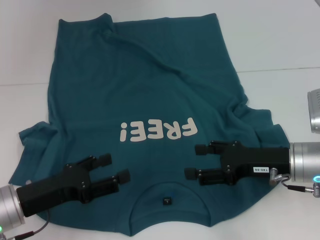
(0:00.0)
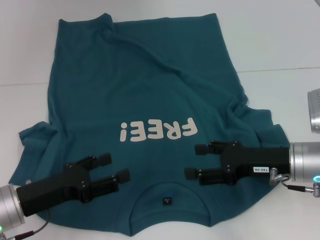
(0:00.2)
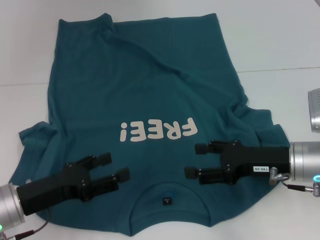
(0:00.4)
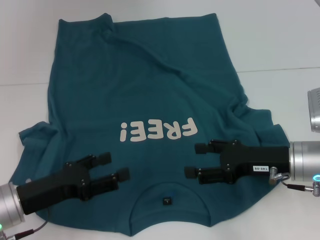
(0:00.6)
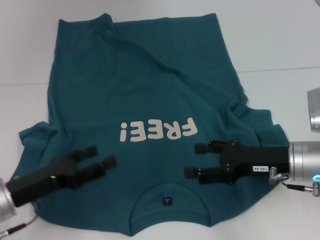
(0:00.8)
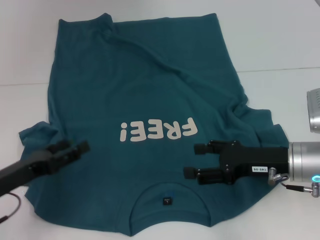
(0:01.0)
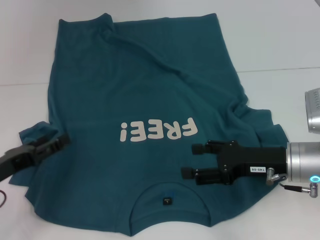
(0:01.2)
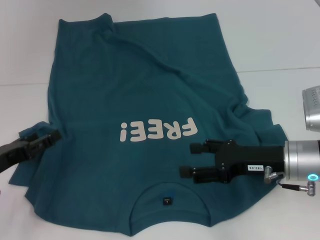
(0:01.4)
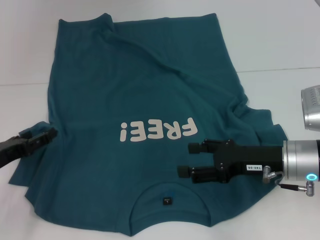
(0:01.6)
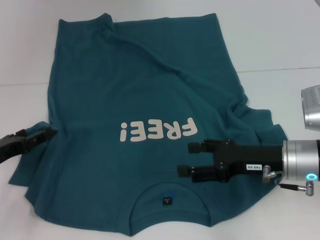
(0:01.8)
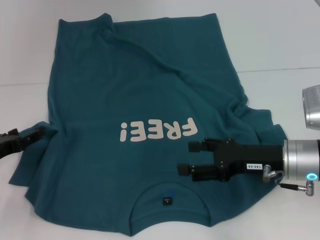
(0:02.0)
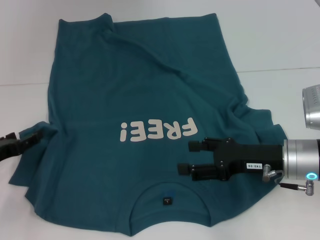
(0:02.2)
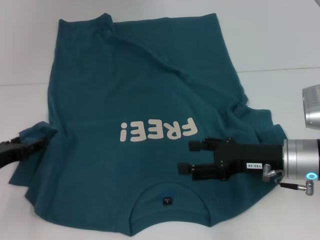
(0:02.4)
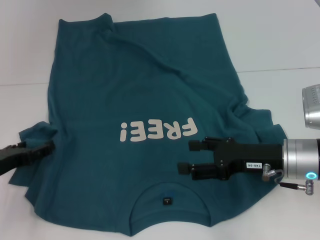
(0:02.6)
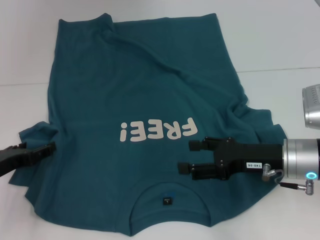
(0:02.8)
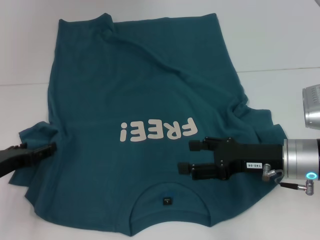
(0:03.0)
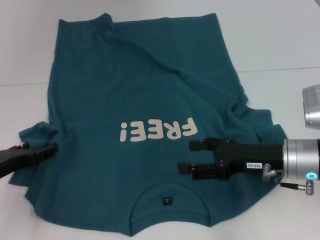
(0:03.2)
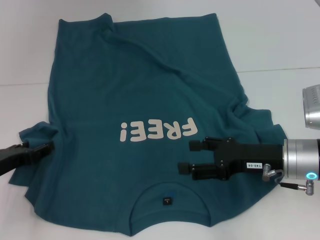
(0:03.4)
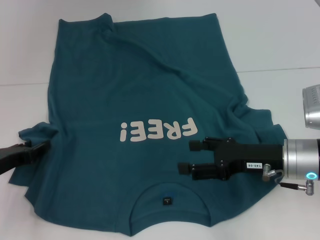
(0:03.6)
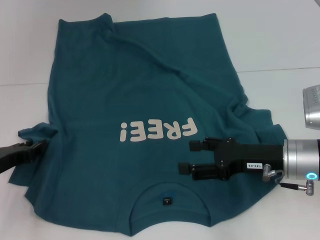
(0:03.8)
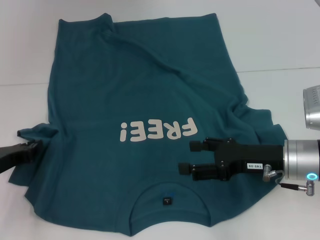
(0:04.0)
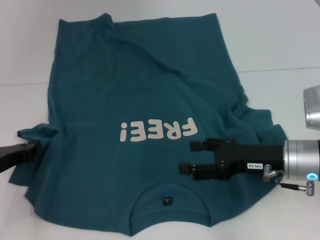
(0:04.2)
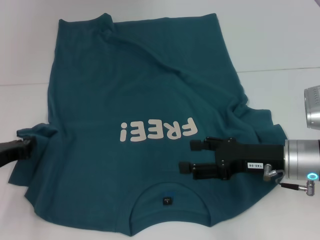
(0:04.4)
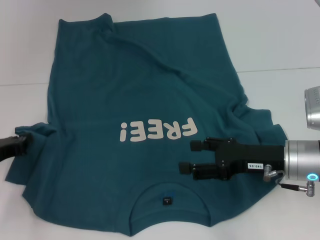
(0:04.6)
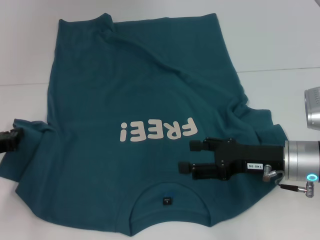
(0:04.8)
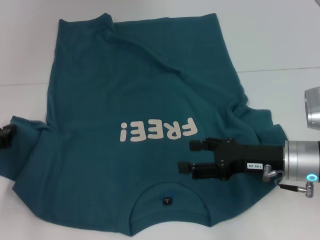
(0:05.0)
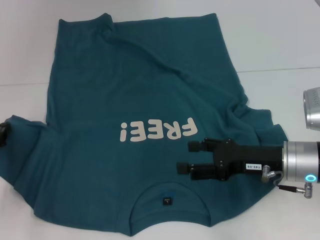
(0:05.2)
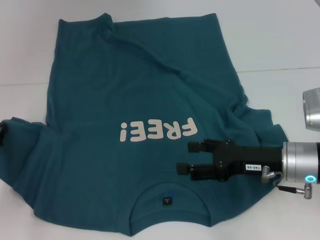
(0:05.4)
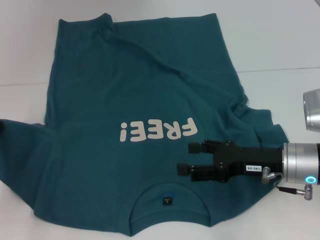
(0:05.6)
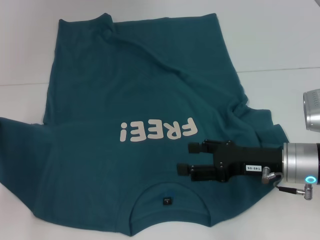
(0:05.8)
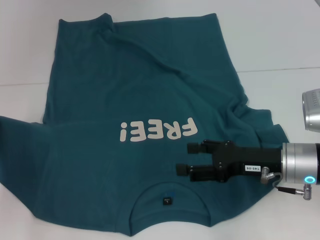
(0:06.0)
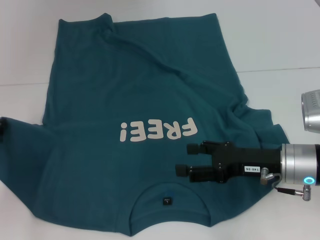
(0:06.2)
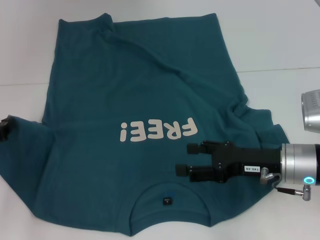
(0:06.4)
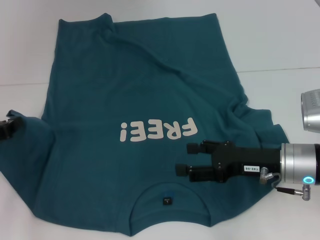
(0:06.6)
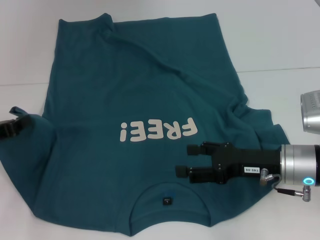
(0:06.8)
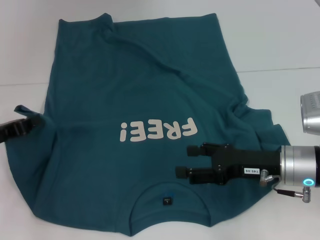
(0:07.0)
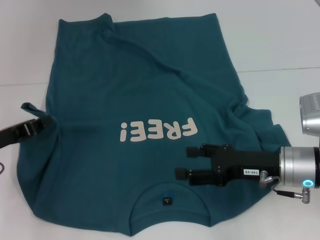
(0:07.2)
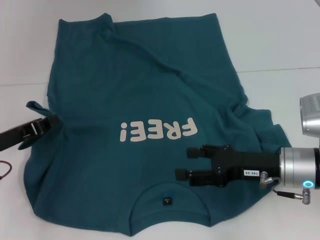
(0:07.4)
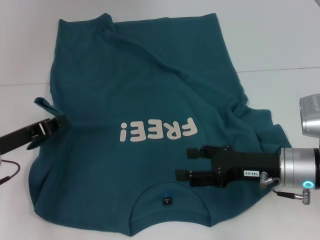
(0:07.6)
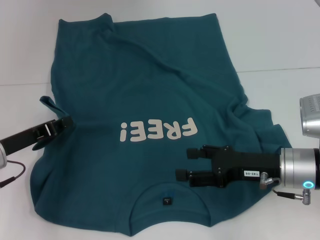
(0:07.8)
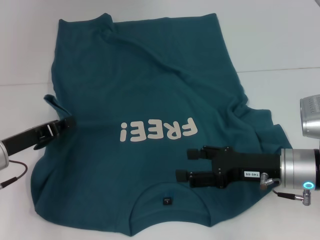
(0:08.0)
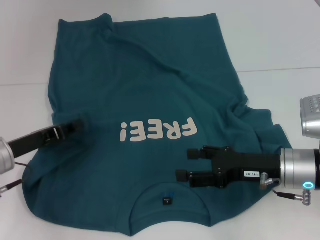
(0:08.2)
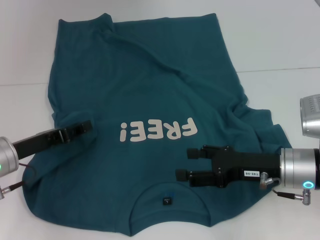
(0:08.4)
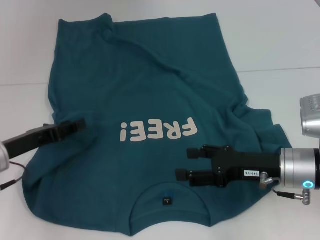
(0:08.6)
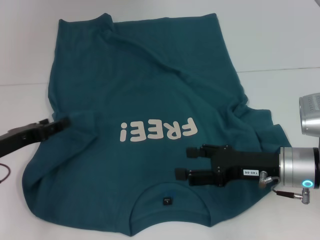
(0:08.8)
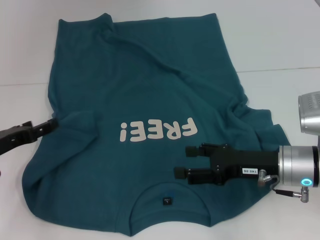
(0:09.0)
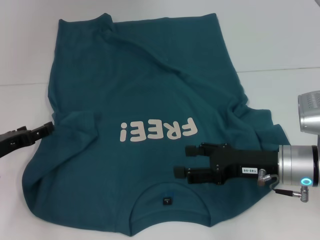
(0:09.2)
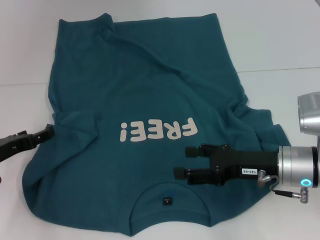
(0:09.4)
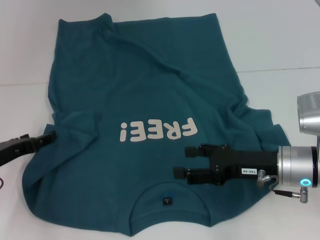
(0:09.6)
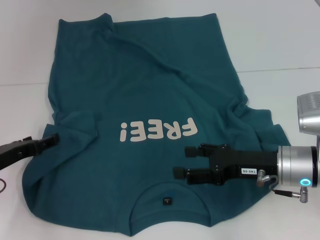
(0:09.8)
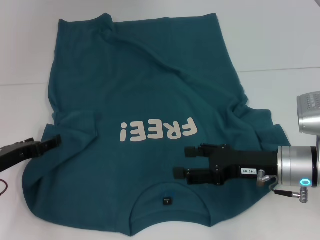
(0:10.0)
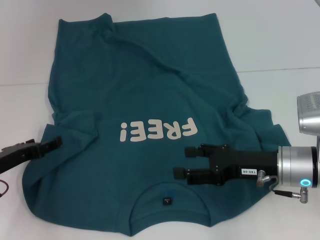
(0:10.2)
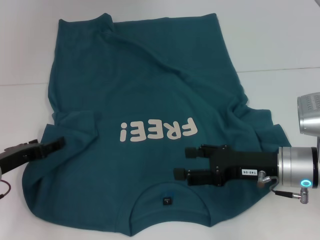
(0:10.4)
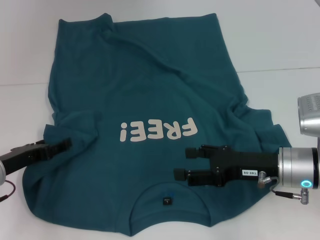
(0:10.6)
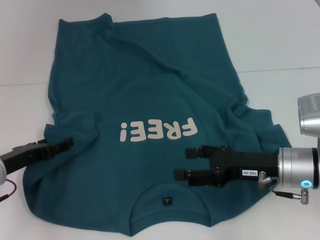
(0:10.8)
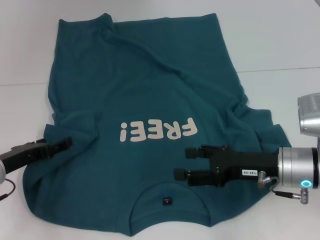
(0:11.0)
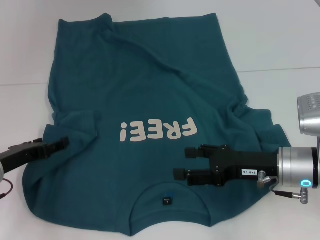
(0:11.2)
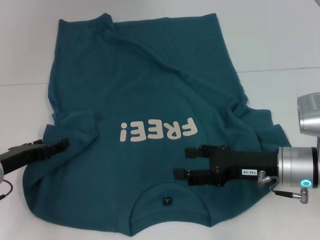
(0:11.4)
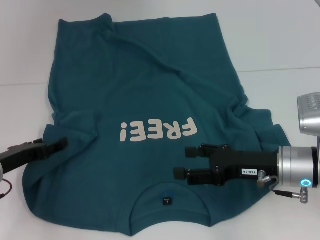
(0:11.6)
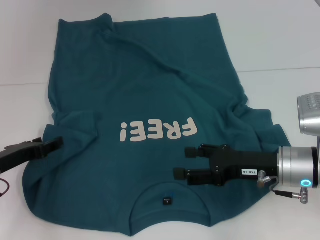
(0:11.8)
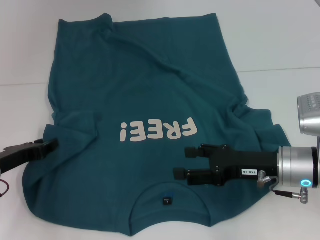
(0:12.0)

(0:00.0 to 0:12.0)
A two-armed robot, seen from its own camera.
Step, 0:00.0 - 0:08.6: Fold the bottom left sleeve with your left hand.
0:00.0 - 0:01.6: The left gripper moves to the left, some 5 cm.
0:01.6 - 0:03.0: The grippers move only a little.
0:03.0 - 0:04.4: The left gripper closes up.
0:04.4 - 0:06.0: The left gripper moves about 5 cm.
0:06.0 - 0:07.6: The left gripper heads to the right, covering approximately 5 cm.
0:07.6 - 0:09.0: The left gripper opens up.
0:09.0 - 0:10.4: The grippers make only small movements.
0:10.4 - 0:12.0: Both grippers stay about where they are.

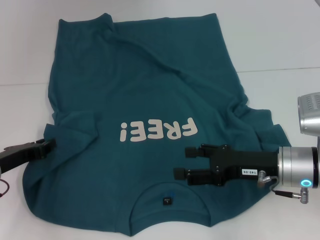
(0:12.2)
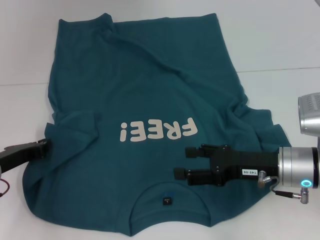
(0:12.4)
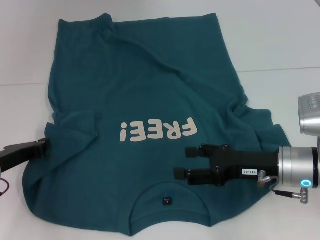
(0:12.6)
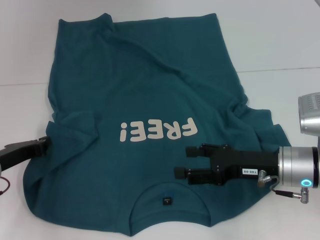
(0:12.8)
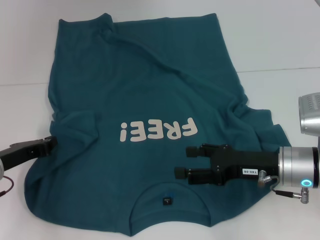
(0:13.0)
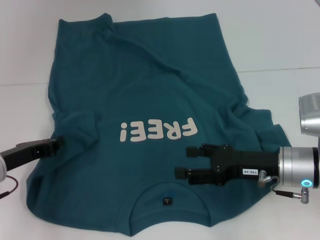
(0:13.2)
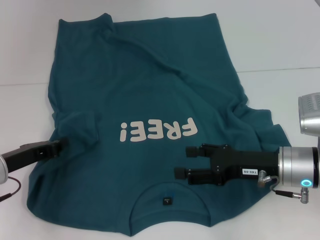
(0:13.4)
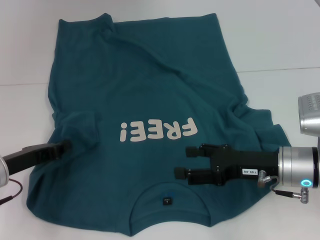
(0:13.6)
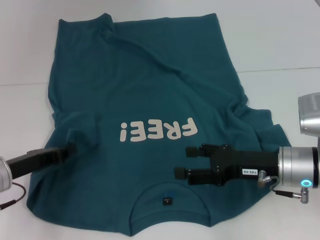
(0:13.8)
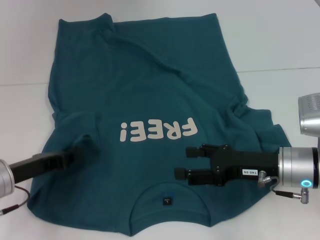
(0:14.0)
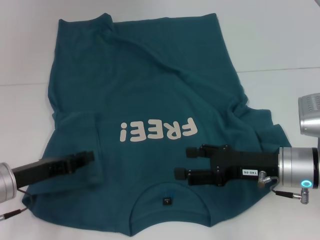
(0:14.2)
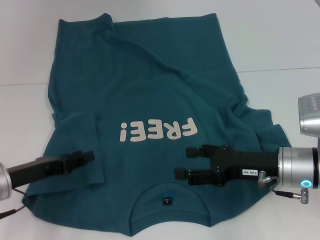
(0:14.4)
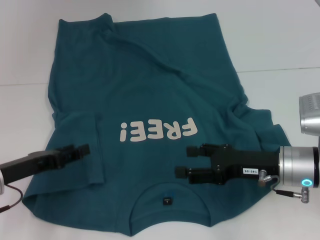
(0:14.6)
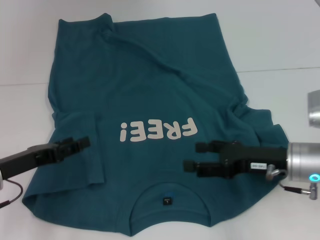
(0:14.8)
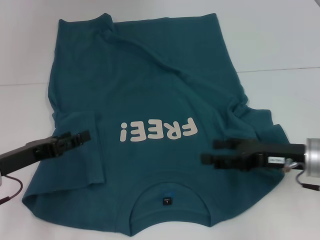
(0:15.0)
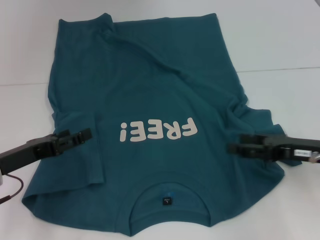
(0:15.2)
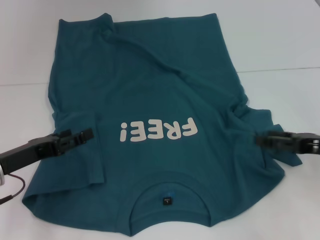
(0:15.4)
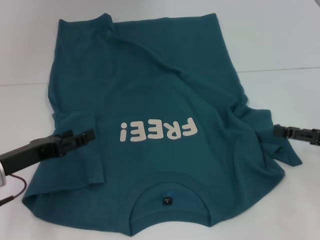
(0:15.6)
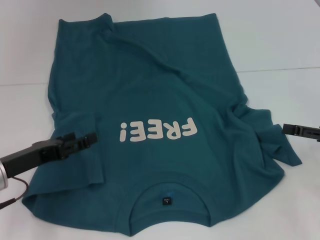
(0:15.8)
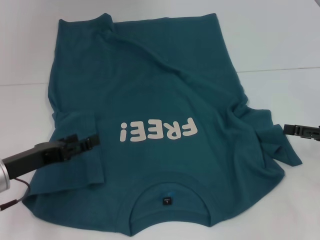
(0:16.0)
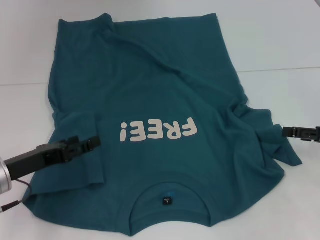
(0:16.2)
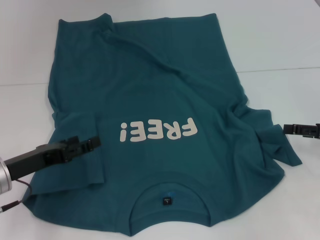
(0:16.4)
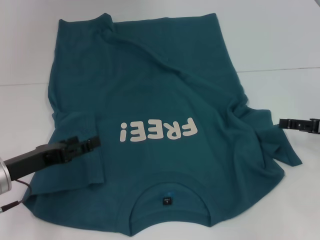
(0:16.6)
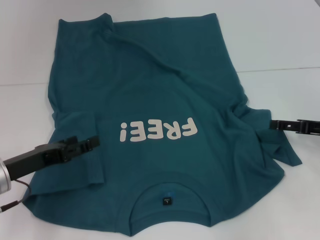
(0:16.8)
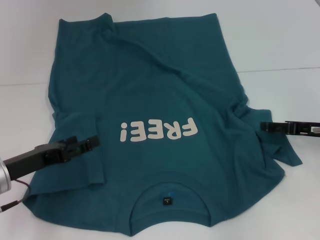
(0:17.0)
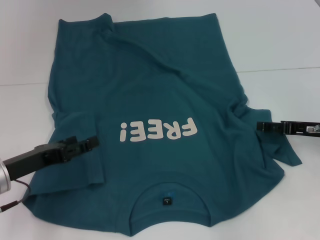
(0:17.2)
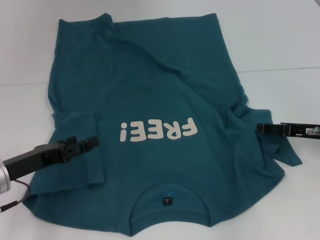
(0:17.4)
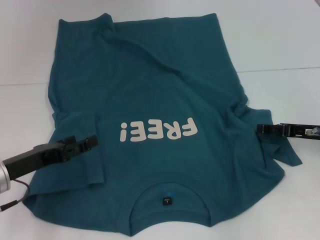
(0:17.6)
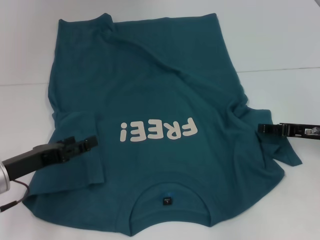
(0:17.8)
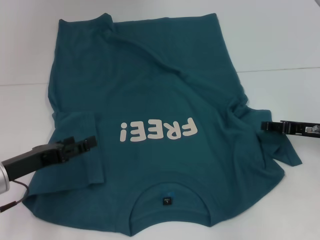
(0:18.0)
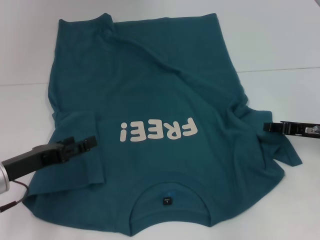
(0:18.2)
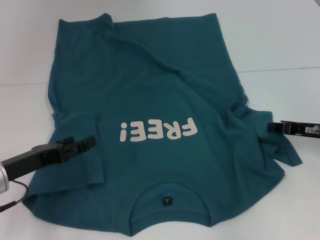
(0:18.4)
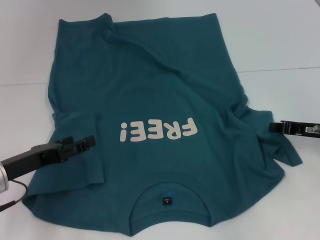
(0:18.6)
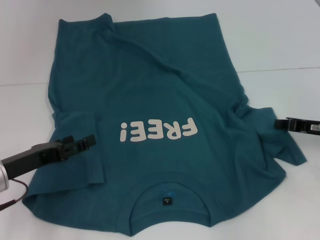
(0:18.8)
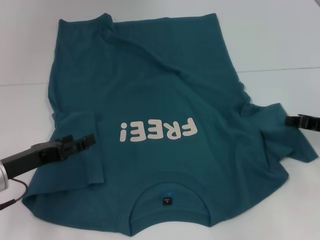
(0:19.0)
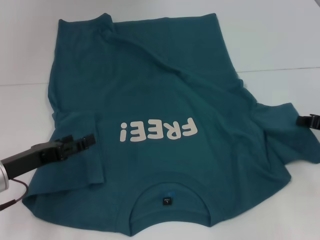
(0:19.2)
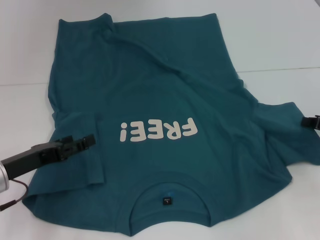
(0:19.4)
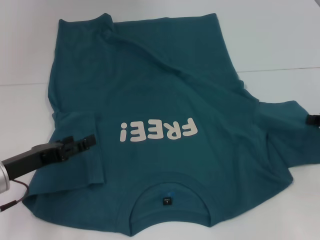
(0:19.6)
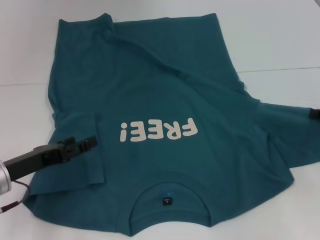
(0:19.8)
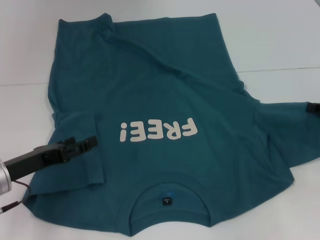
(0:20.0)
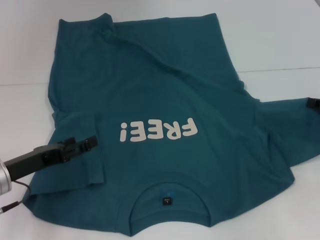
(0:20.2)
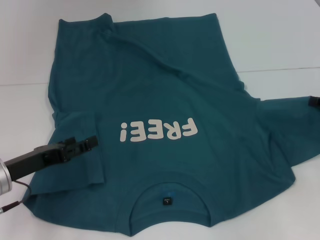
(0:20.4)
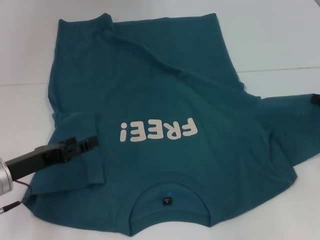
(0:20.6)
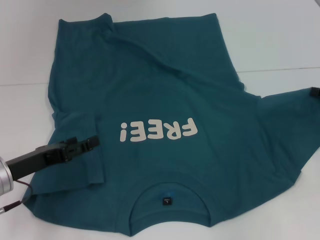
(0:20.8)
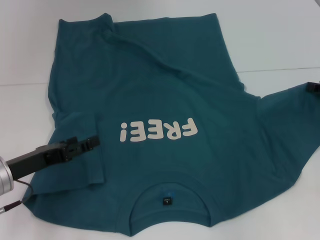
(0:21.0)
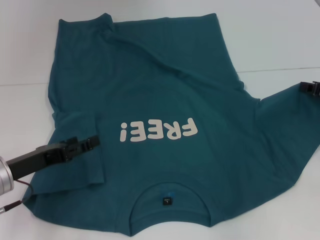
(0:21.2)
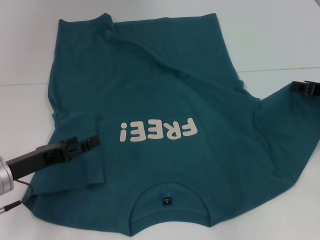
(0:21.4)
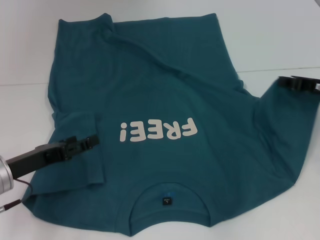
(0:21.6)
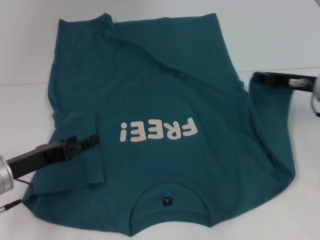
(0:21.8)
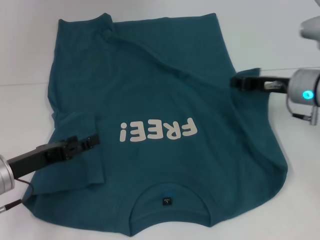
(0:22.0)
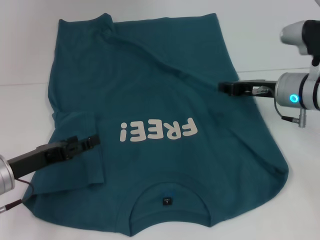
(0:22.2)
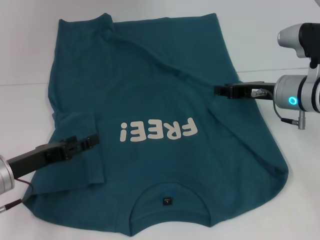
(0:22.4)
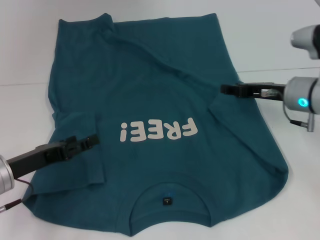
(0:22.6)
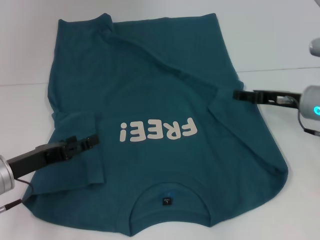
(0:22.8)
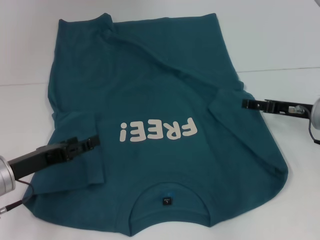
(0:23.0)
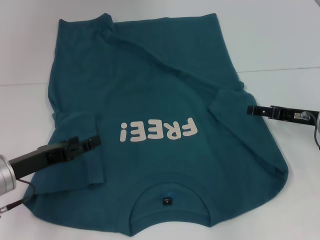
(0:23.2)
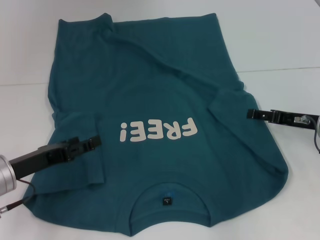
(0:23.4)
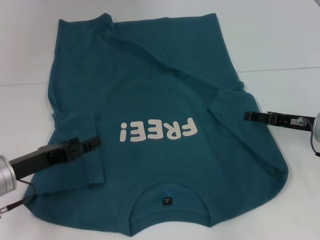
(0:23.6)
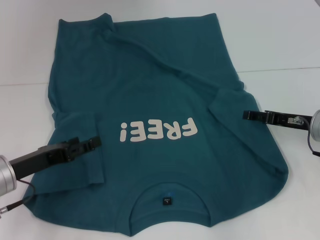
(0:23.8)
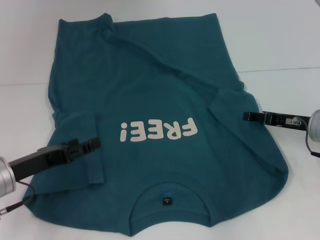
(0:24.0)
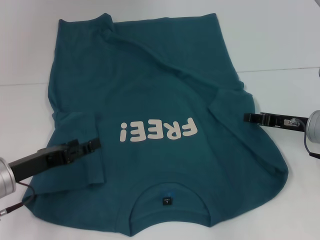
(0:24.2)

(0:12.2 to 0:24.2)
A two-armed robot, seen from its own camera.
Step, 0:12.2 - 0:22.2: Fold the bottom right sleeve to the right.
0:12.2 - 0:13.8: The left gripper closes up.
0:13.8 - 0:15.2: The right gripper goes approximately 10 cm to the right. Meanwhile the left gripper opens.
0:15.2 - 0:16.6: The right gripper heads to the right, covering some 5 cm.
0:16.6 - 0:18.2: The right gripper moves approximately 5 cm, and closes its fingers.
0:18.2 - 0:19.8: The right gripper moves to the right, some 5 cm, and closes.
0:19.8 - 0:21.2: There are only small adjustments of the grippers.
0:21.2 - 0:22.6: The right gripper shifts some 10 cm to the left.
0:22.6 - 0:24.2: The right gripper changes place by approximately 5 cm, and opens, then closes again.
